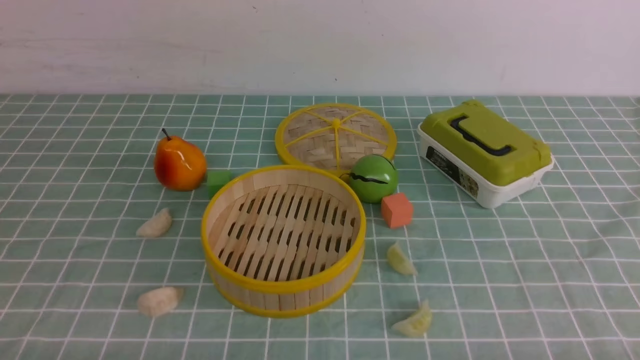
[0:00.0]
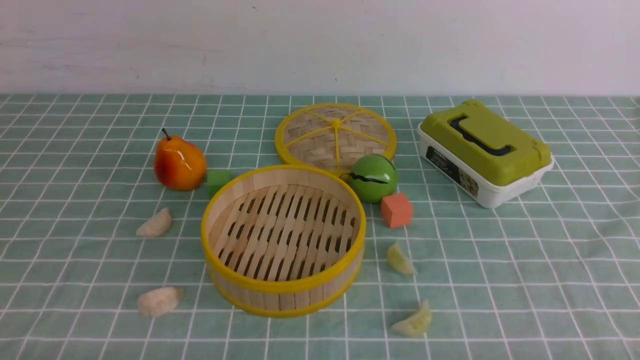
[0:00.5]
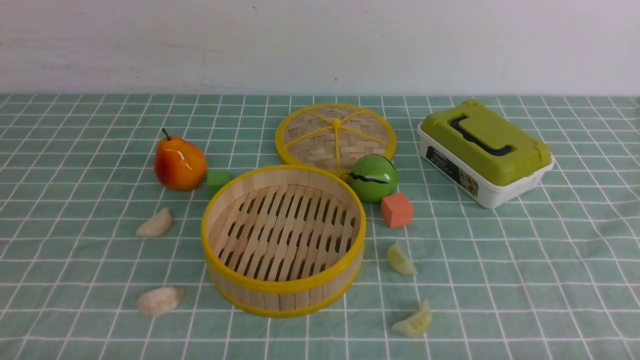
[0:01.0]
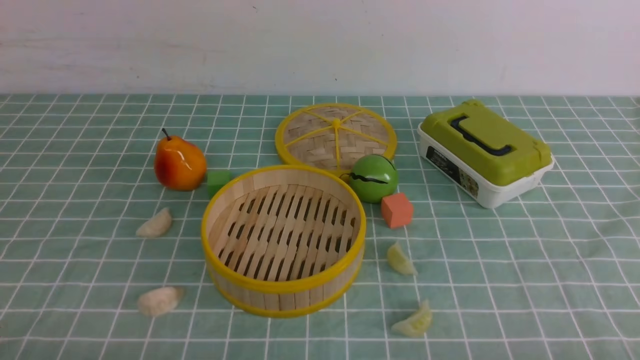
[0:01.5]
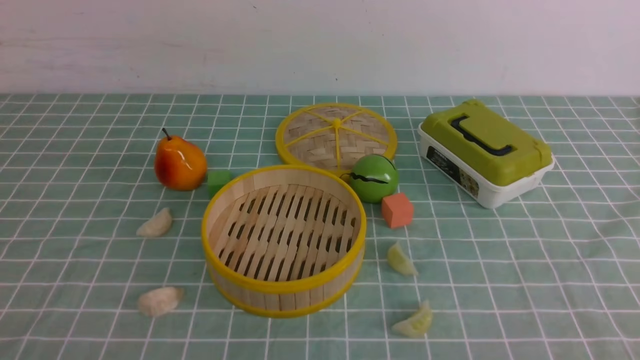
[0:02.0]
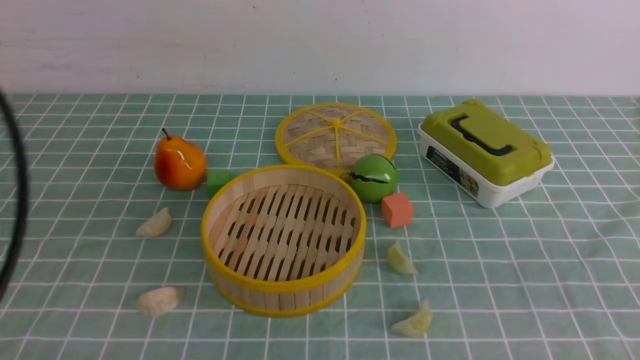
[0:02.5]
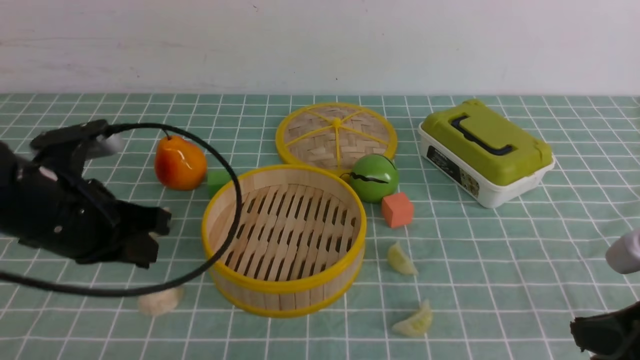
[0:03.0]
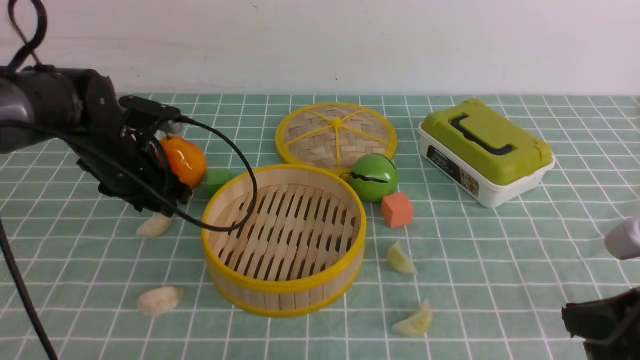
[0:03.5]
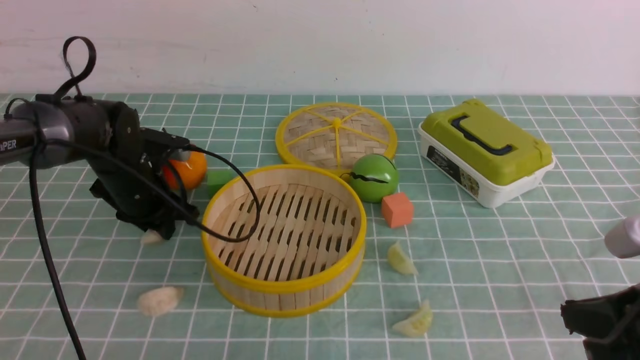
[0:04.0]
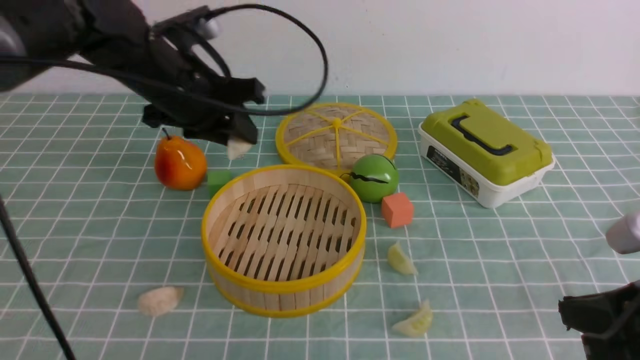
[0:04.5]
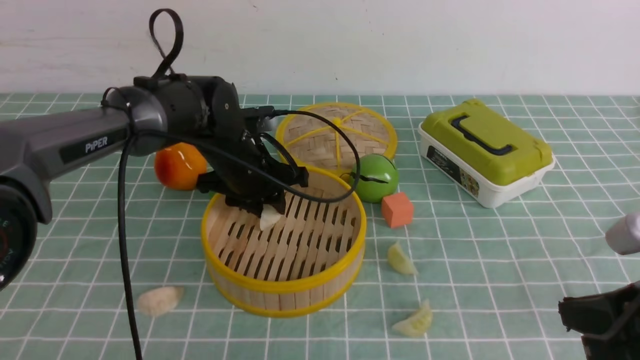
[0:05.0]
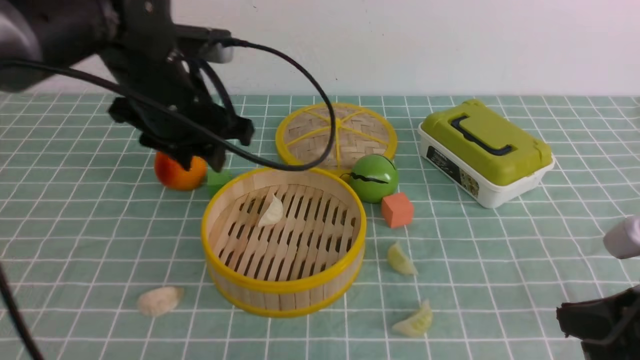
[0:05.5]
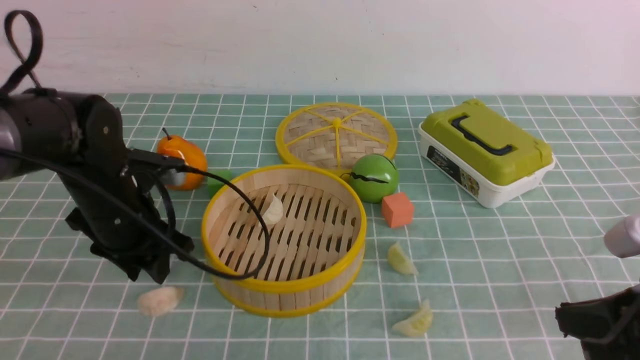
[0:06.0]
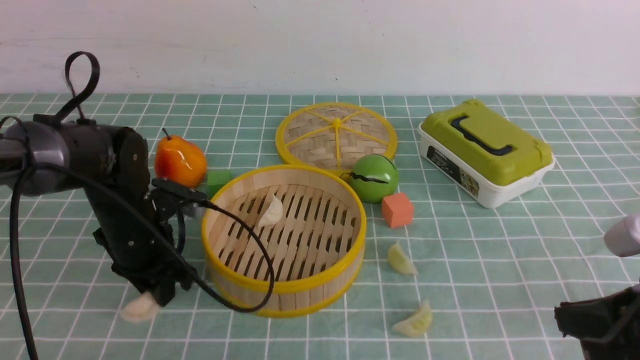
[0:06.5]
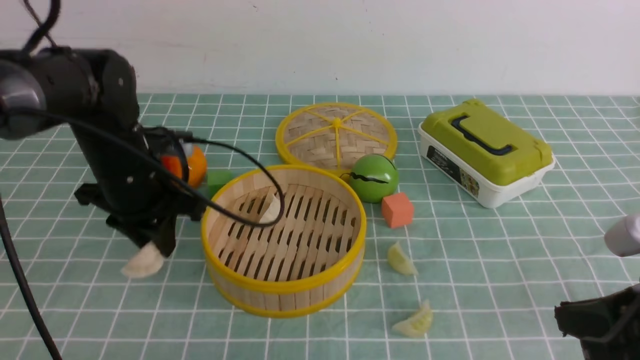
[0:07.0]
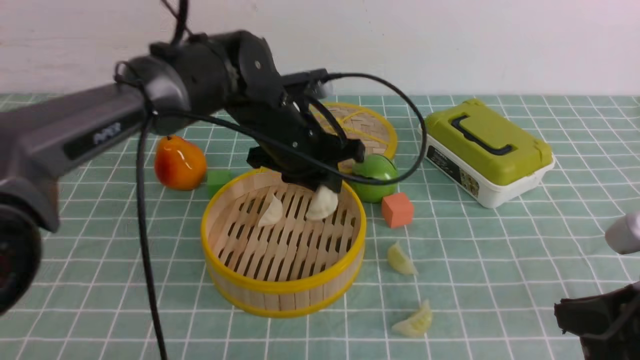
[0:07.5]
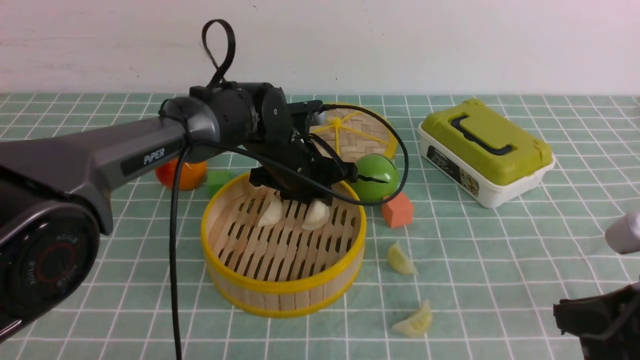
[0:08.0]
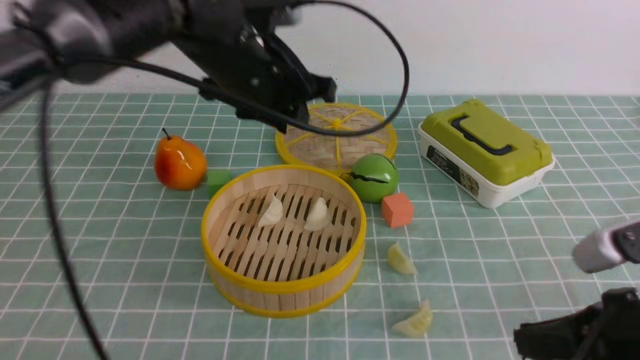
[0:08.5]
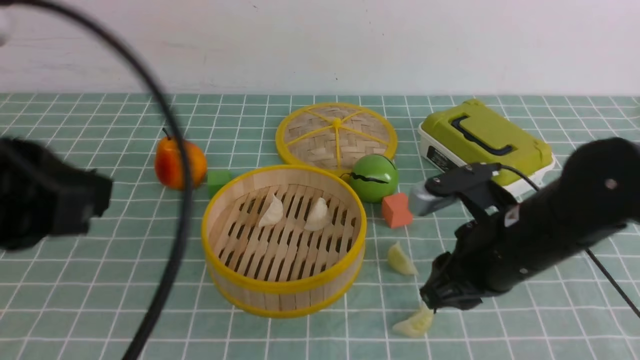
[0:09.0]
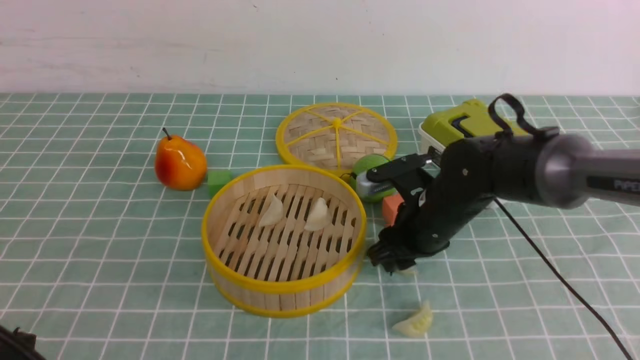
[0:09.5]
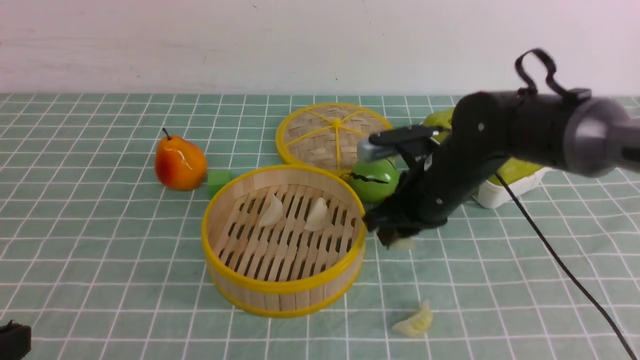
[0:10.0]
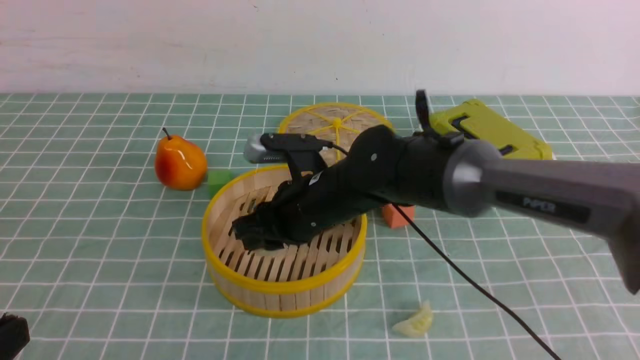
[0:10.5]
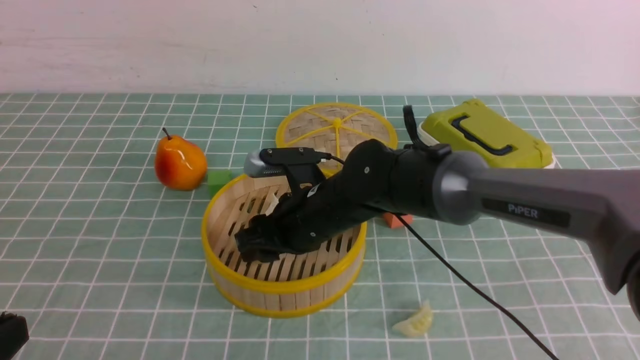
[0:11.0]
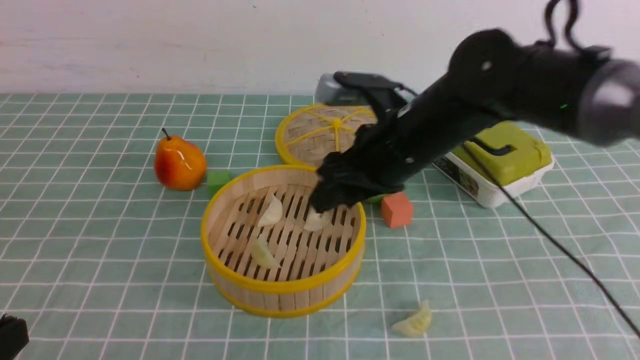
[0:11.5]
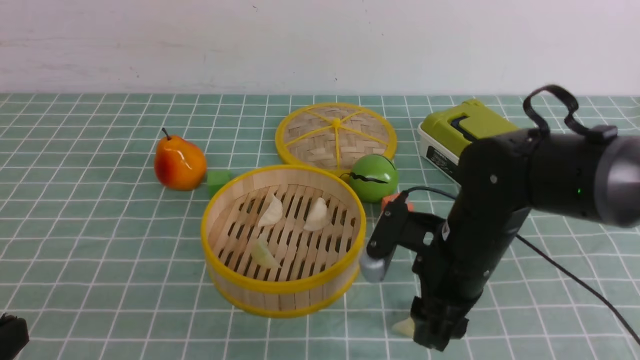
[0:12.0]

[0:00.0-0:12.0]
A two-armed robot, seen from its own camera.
Task of the whole recording: put the dumplings into the steamer on the table with the blue tablecloth.
Step, 0:00.0 to 0:03.5: use the left arm to grab a dumpling.
Step, 0:04.0 to 0:05.0: use the left arm to put the dumpling into the steamer.
Step, 0:05.5 to 0:06.0: use the left arm to grab a dumpling.
Step, 0:06.5 to 0:08.0: use the left arm to put the dumpling into the steamer.
Step, 0:08.5 to 0:09.5: use the right arm to grab a dumpling.
Step, 0:10.0 to 0:11.0: use the right arm to put the dumpling into the steamer.
0:02.0 to 0:04.0: The right gripper moves forward, some 10 cm. The left gripper is displaced forward by approximately 40 cm, and opens.
0:04.0 to 0:06.0: The left gripper is displaced backward by about 10 cm, and travels to the right and back again, roughly 10 cm each way.
0:06.0 to 0:08.0: The left gripper heads to the right and forward, covering some 20 cm.
0:08.0 to 0:10.0: The right gripper goes about 25 cm forward and to the left, and opens its fingers, while the left gripper shifts roughly 40 cm backward and to the left, and closes its fingers.
0:10.0 to 0:12.0: The right gripper goes approximately 5 cm backward, travels to the left and back again, approximately 10 cm each way, and opens up.

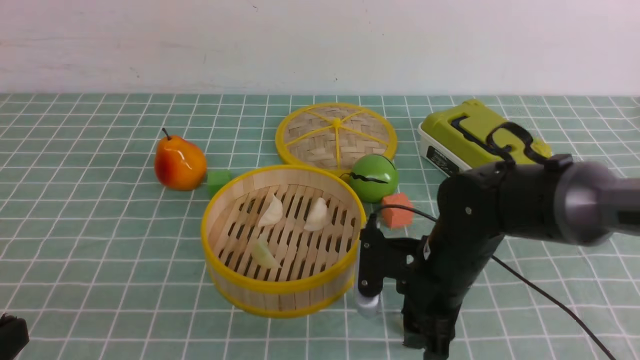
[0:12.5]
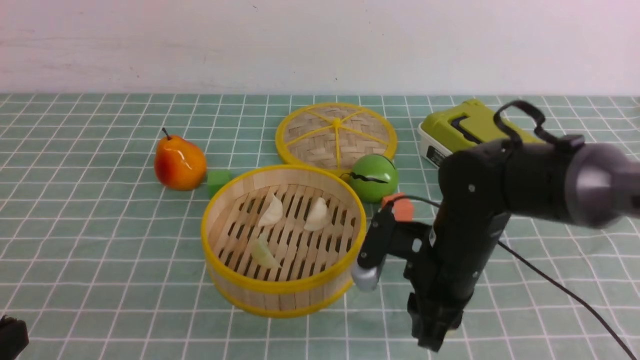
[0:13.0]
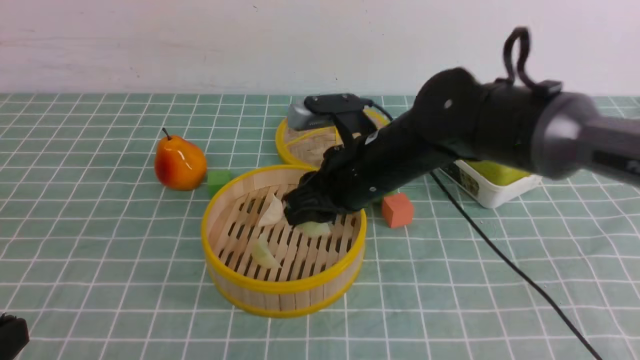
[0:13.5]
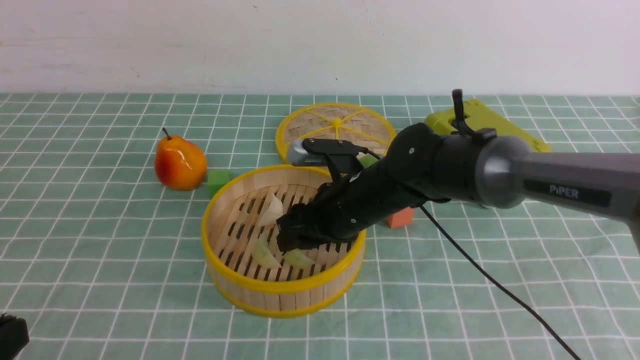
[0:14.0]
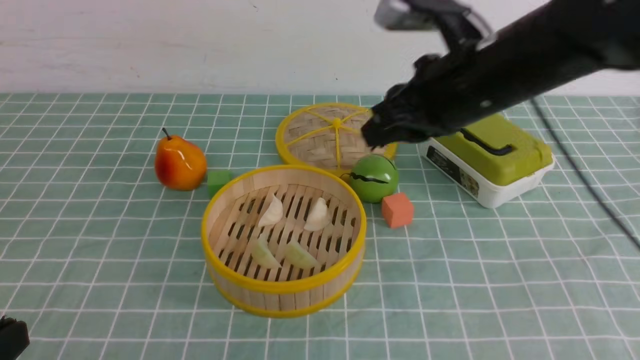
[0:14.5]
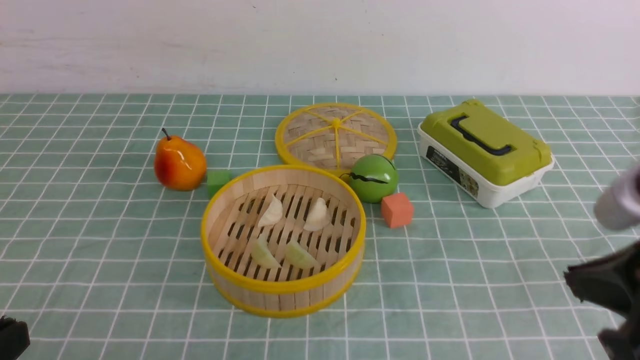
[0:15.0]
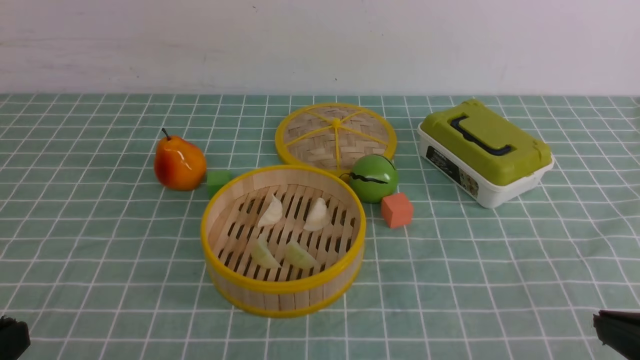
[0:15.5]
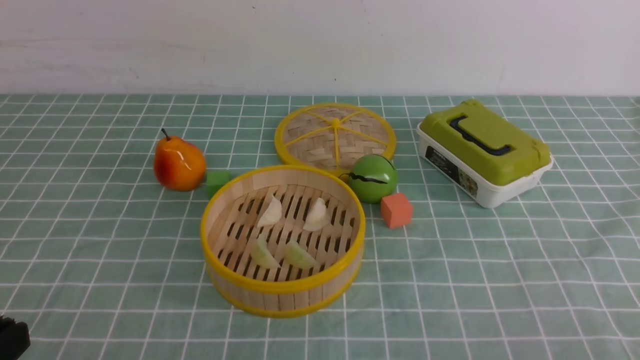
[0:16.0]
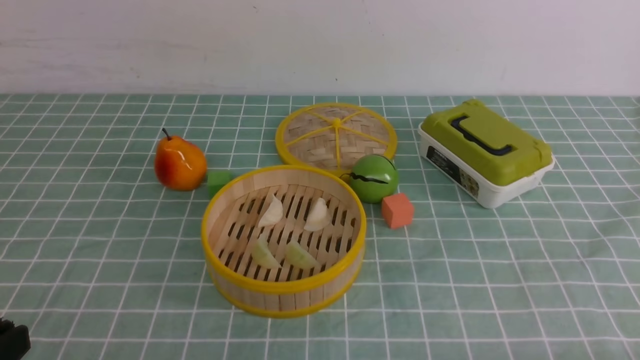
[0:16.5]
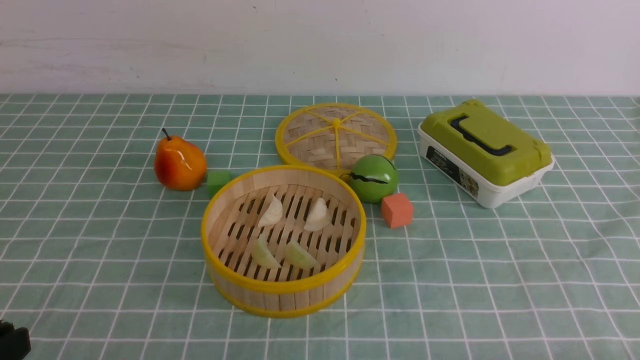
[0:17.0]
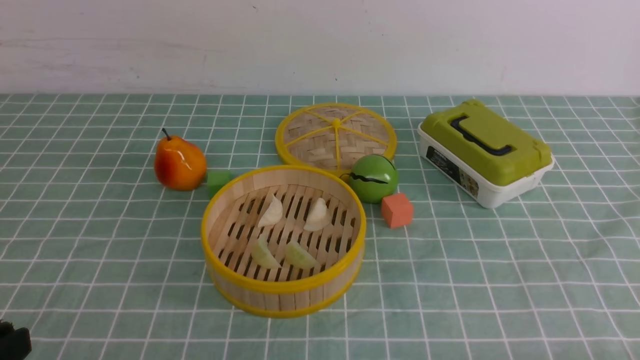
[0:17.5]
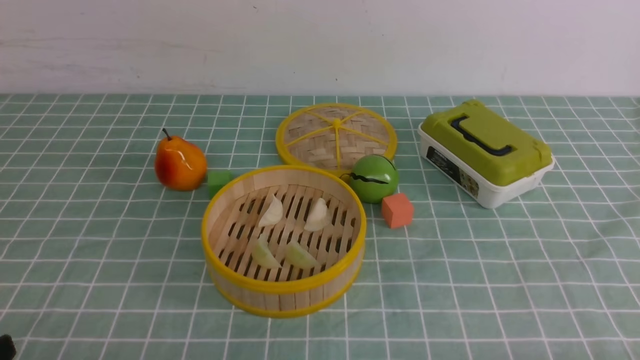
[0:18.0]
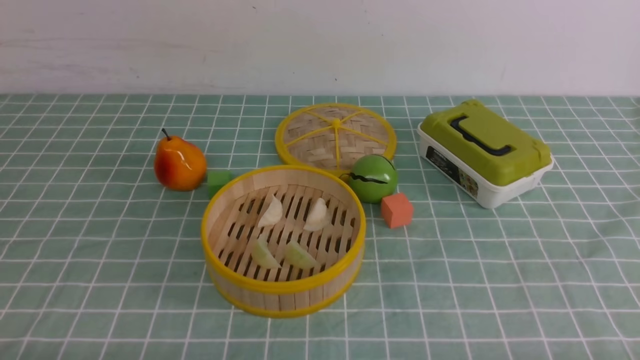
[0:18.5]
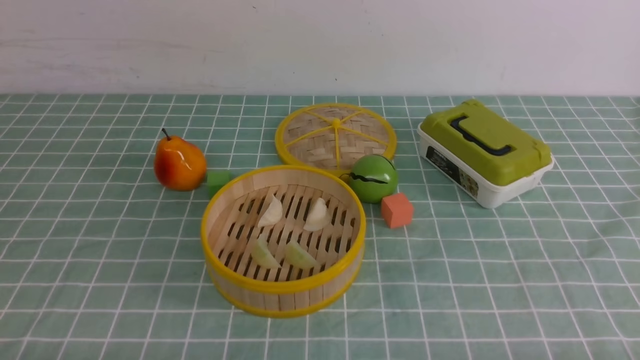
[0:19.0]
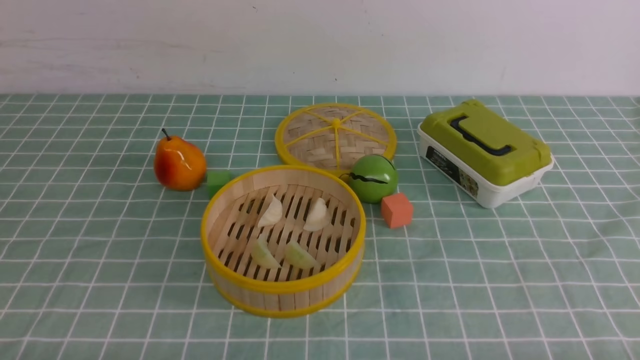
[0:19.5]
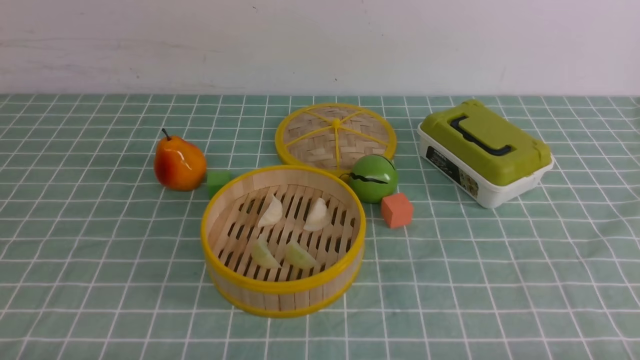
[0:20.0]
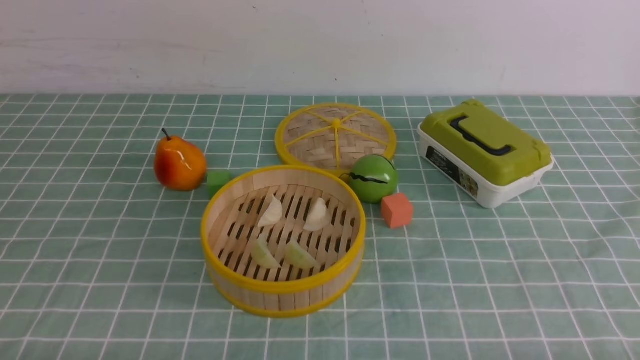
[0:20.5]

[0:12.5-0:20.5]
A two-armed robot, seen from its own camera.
Task of the whole recording: put the dumplings into the steamer on the table with the blue tablecloth.
Step, 0:13.0 to 0:14.0: use the right arm to put the dumpling into the steamer.
0:12.5 to 0:14.5: The right gripper swings up and down, approximately 20 cm each way, with 2 reversals, and closes.
0:14.5 to 0:16.5: The right gripper shifts about 35 cm backward, to the right and downward.
